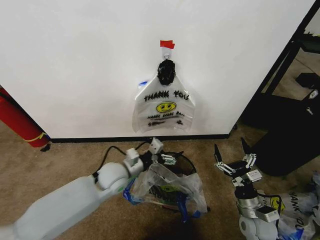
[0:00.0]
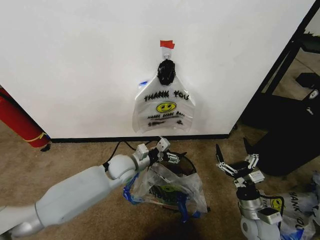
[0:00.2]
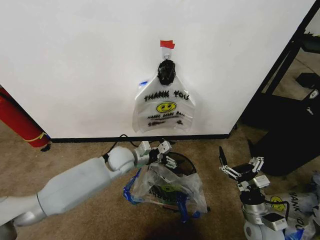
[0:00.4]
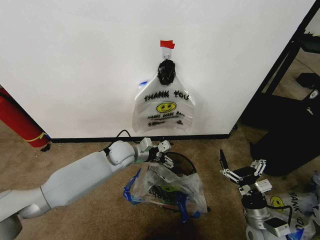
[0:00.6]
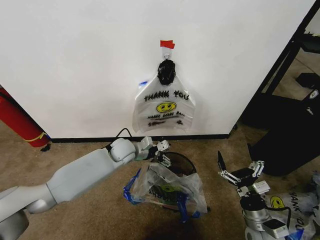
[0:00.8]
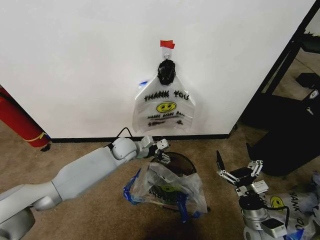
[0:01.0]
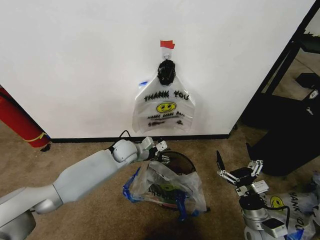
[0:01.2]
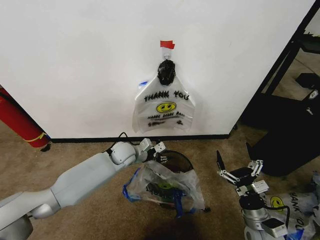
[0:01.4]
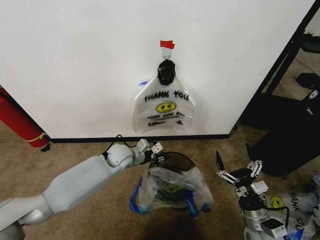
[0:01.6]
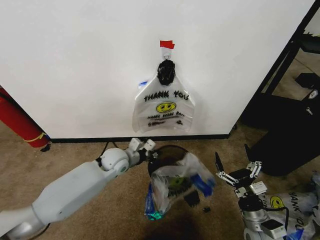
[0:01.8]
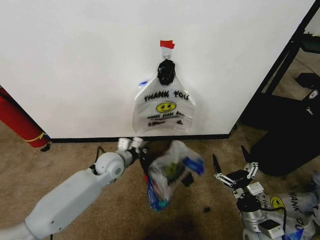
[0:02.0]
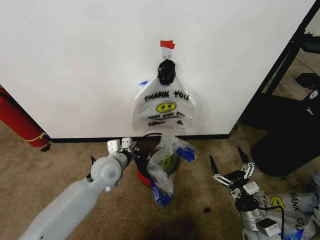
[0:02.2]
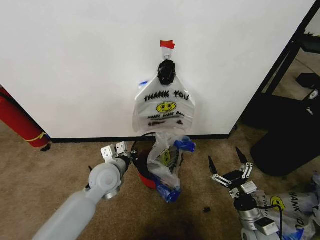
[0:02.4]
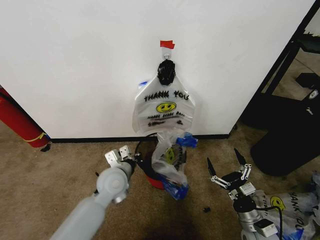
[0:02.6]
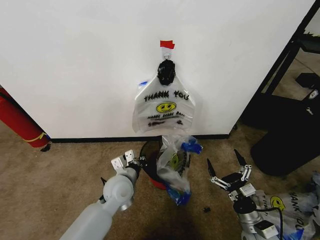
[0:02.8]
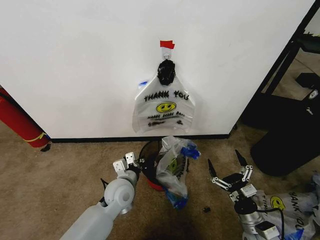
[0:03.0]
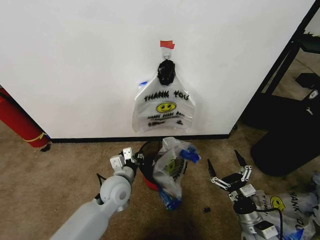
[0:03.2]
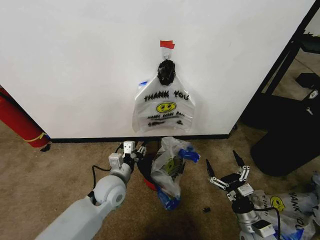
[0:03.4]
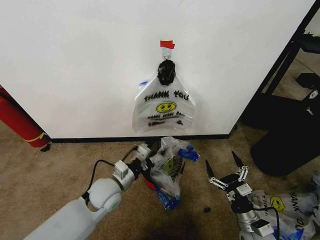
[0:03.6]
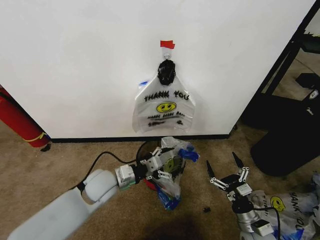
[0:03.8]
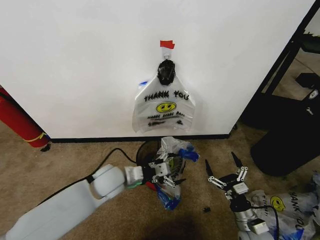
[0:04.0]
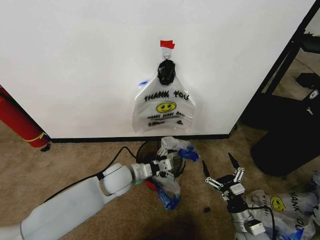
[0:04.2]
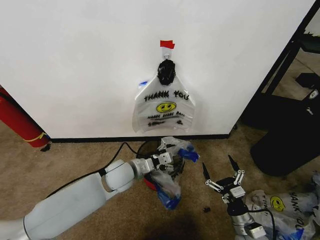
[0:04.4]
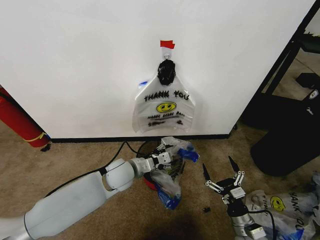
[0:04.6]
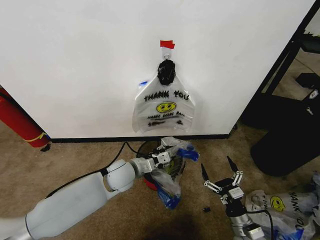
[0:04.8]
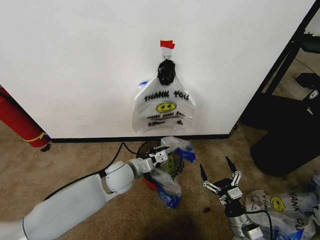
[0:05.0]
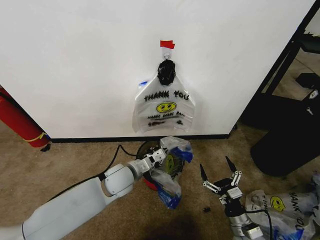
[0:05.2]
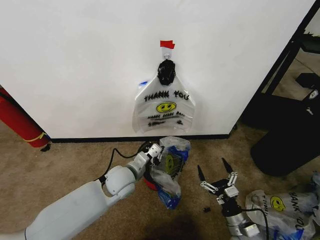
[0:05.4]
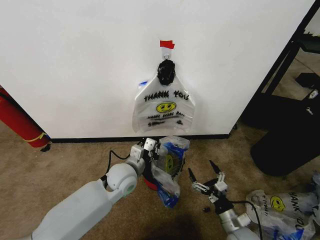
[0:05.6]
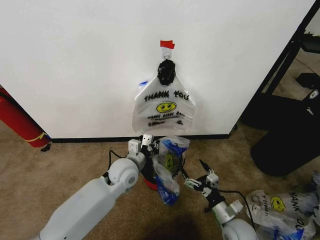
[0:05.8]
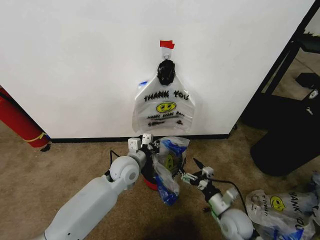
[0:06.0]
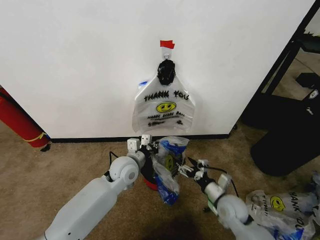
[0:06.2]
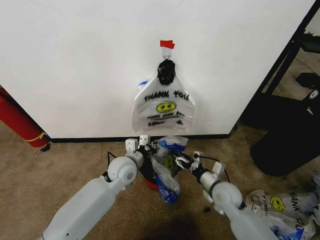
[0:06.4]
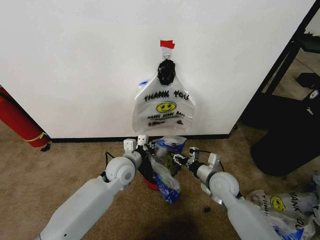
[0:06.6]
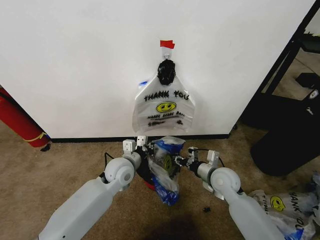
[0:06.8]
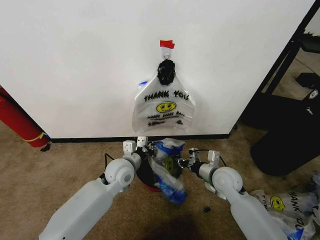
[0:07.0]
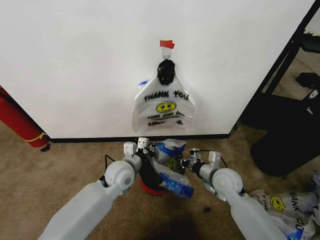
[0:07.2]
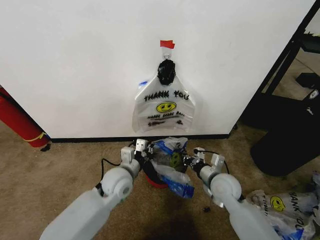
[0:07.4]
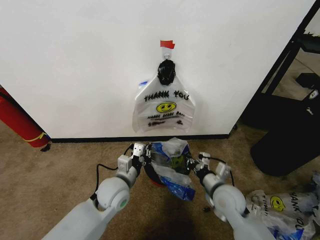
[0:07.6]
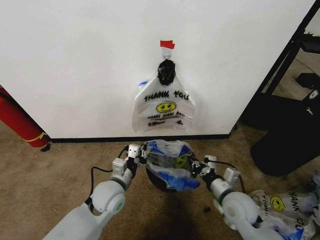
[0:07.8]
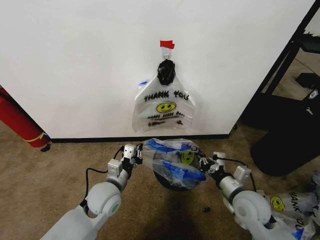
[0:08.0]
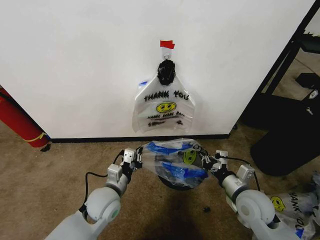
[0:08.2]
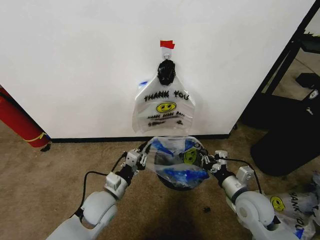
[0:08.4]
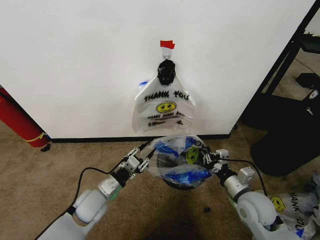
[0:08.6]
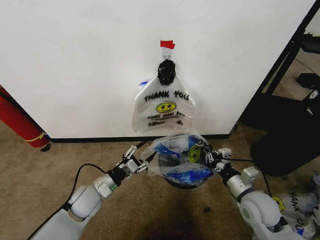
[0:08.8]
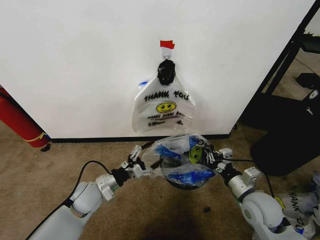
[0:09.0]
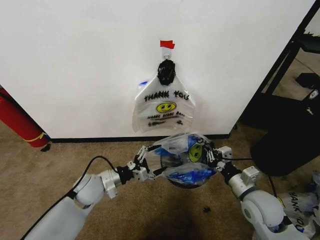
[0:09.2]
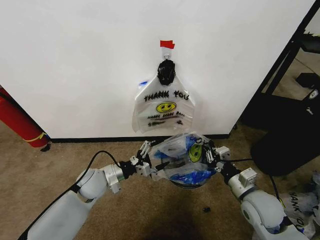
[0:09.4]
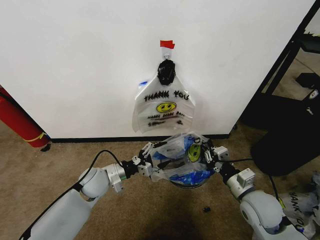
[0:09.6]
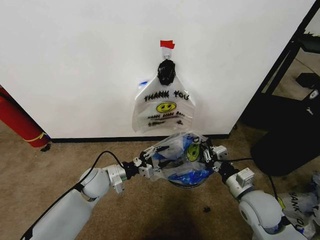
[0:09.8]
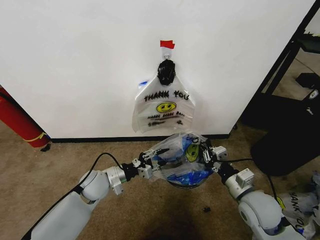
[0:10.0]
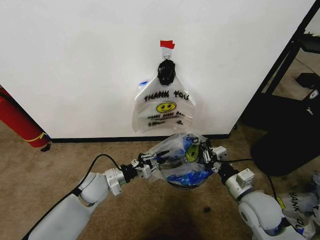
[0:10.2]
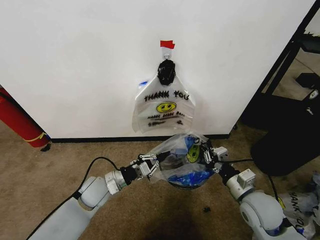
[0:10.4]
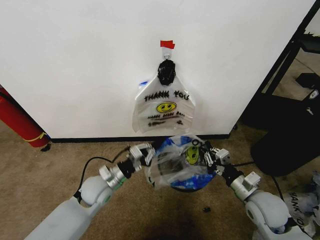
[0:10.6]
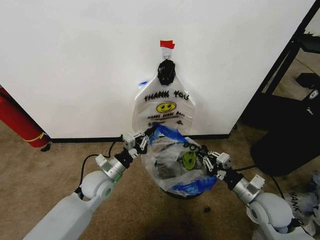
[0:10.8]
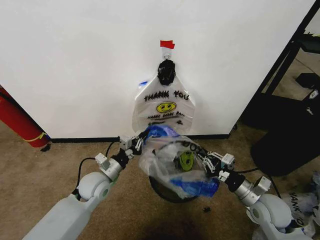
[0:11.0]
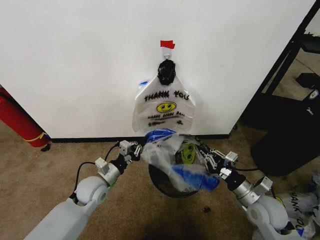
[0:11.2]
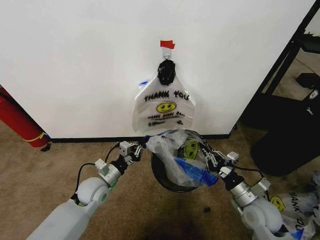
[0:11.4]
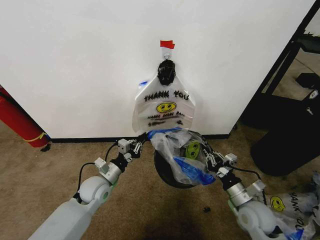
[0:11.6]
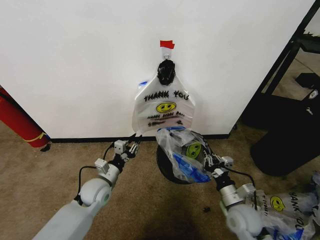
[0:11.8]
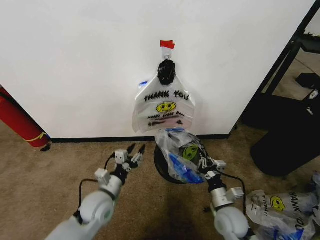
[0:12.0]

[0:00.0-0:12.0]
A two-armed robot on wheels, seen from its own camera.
Task of the whole recording: Pick up the garbage bag from the wall and place it over the trash bin.
0:00.0 to 0:01.6: The left gripper moves forward, some 10 cm, and closes its fingers.
0:01.6 to 0:03.0: The left gripper shifts roughly 15 cm backward.
0:03.0 to 0:04.4: The left gripper changes place by roughly 5 cm, and opens up.
0:04.4 to 0:06.0: The right gripper heads forward, covering approximately 5 cm, while the left gripper closes up.
0:06.0 to 0:07.6: The left gripper is displaced backward by approximately 5 cm. Meanwhile the right gripper travels upward by about 10 cm, and closes.
0:07.6 to 0:09.0: The left gripper heads to the left, covering approximately 10 cm, and opens its fingers. Meanwhile the right gripper is displaced to the right by roughly 5 cm.
0:09.0 to 0:10.4: The left gripper closes its fingers.
0:10.4 to 0:12.0: The right gripper travels downward and to the left by approximately 10 cm, while the left gripper travels backward by about 5 cm, and opens.

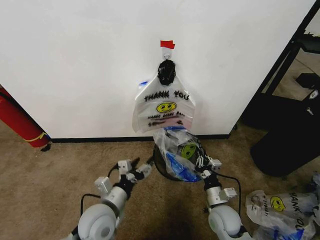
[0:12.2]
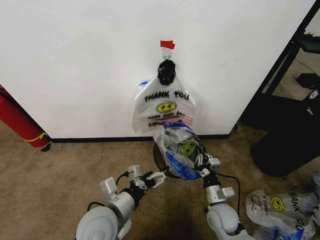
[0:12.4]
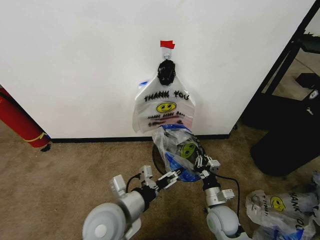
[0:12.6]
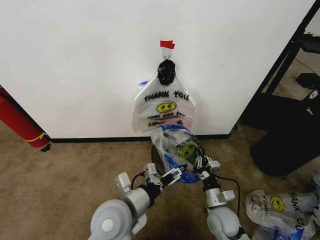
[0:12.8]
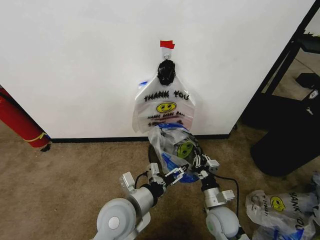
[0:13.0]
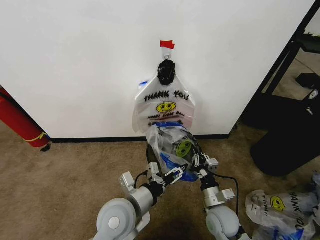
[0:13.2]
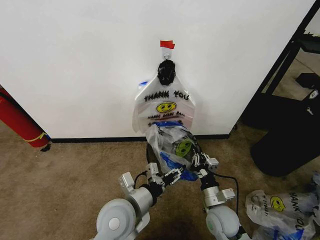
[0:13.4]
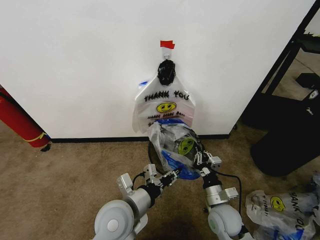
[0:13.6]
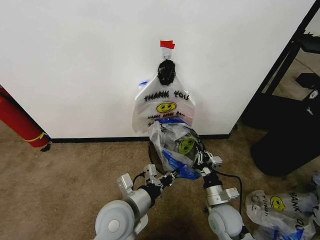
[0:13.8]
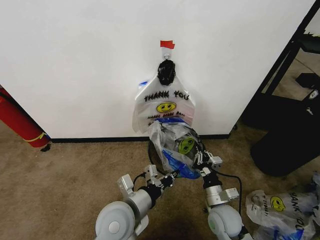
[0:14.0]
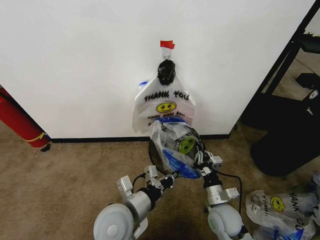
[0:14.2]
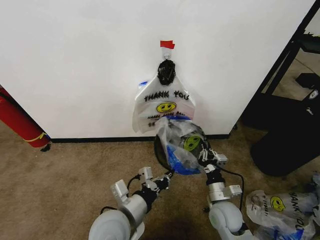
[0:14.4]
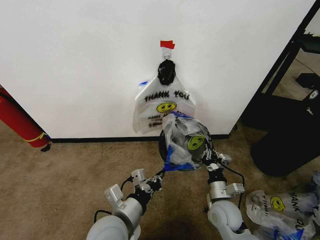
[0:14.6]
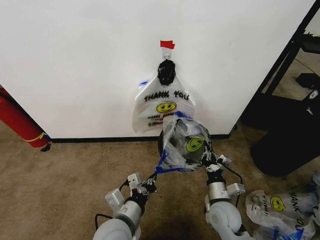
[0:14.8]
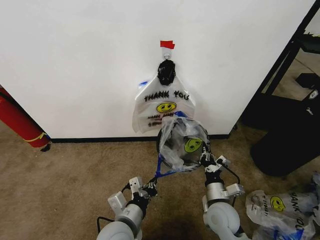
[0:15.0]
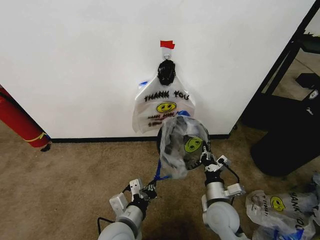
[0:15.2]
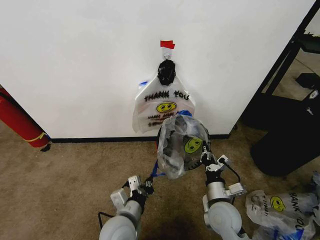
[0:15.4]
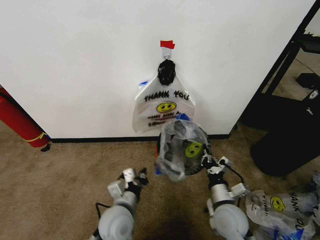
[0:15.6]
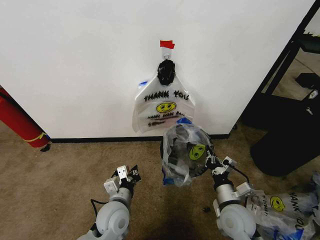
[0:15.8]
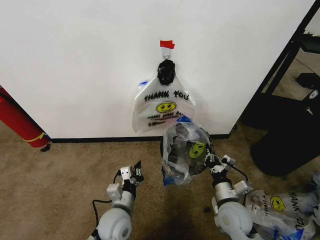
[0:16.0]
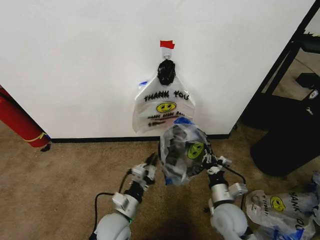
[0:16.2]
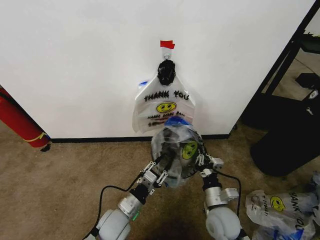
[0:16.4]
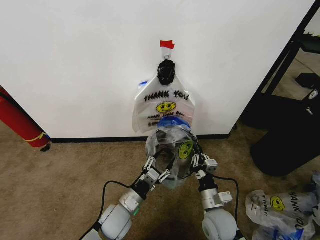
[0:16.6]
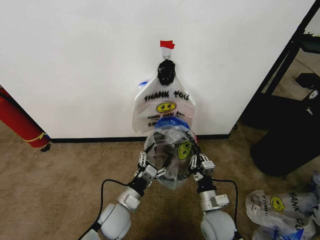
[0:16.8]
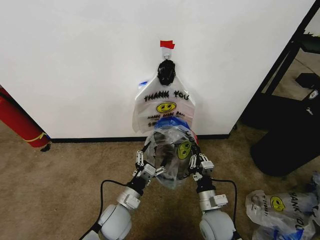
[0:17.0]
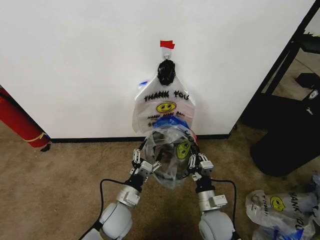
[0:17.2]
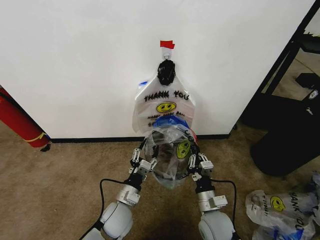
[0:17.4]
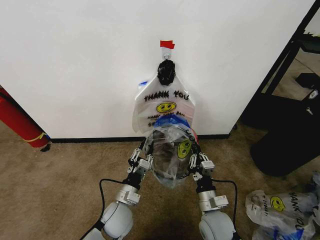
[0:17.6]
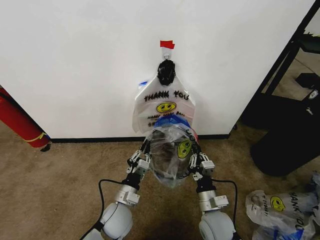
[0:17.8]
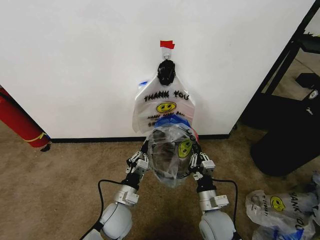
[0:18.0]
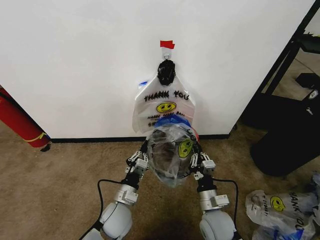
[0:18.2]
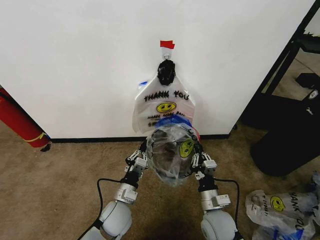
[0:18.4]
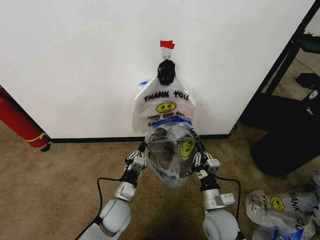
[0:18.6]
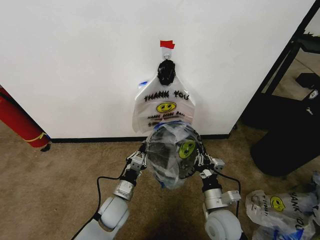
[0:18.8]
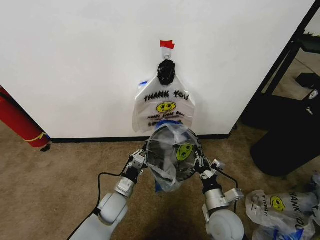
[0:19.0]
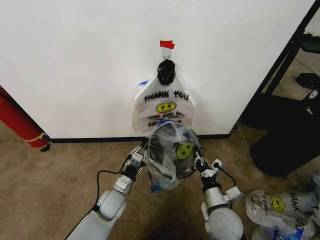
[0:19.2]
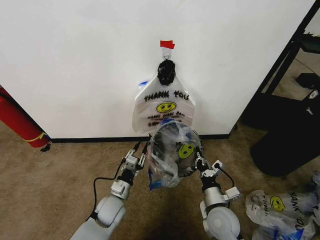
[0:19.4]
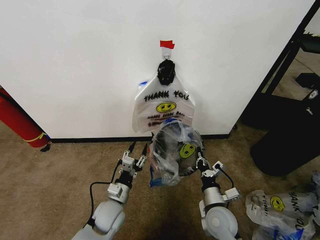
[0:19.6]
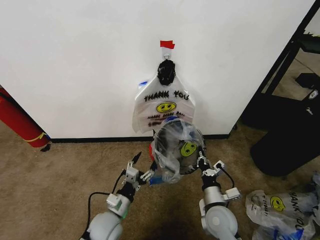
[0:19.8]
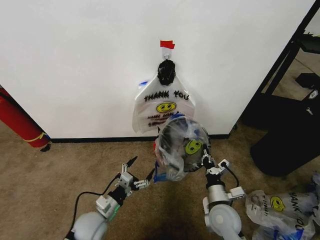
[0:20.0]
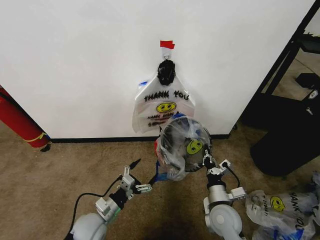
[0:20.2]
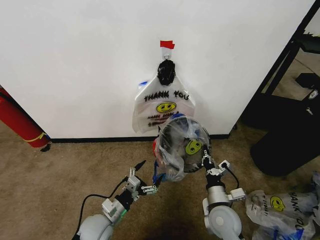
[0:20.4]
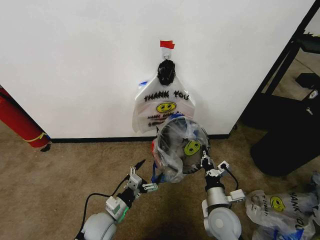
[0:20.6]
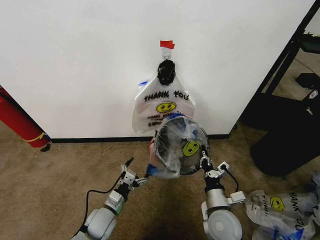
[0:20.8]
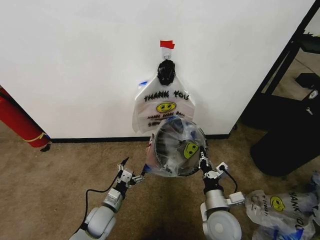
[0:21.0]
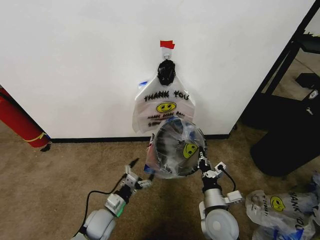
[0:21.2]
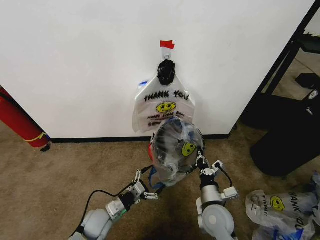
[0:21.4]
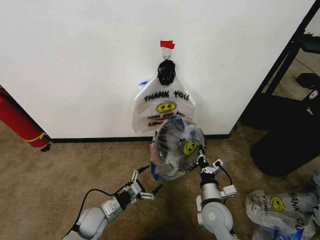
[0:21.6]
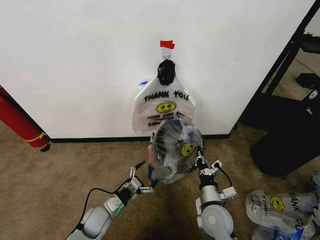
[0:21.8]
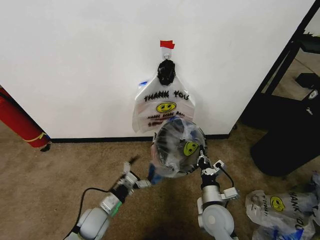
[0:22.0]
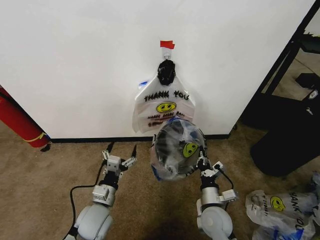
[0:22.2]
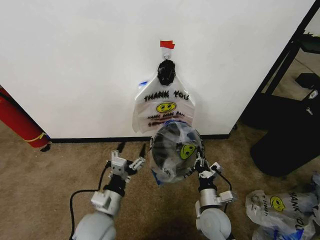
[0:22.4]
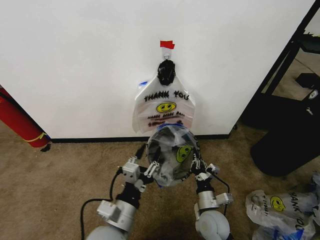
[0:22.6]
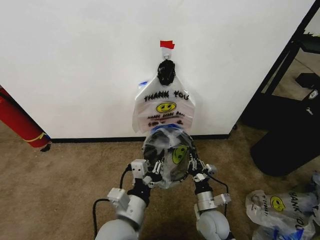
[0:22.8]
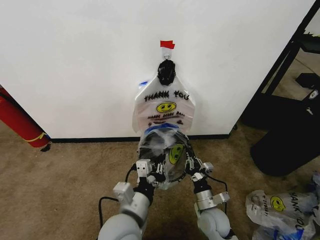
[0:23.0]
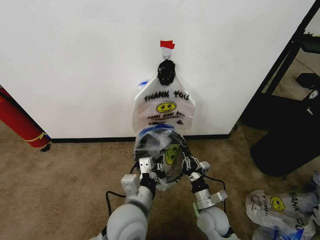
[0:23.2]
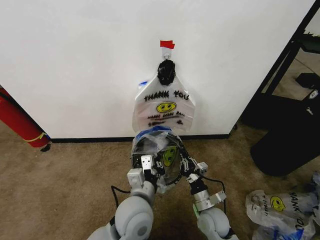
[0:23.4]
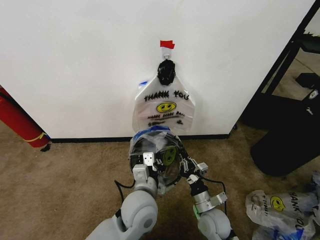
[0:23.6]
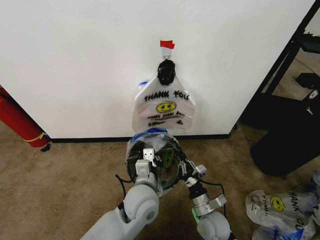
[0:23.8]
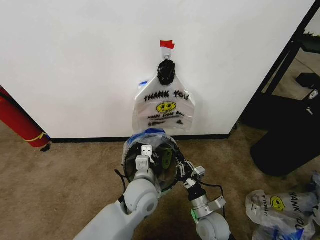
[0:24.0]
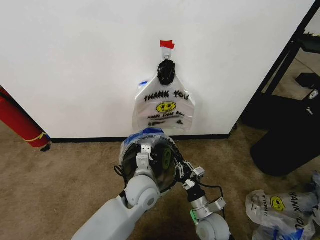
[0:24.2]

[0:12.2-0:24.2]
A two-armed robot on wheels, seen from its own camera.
Task of the whole recording: Pick up the garbage bag from the wall and place it over the trash bin.
0:12.2 to 0:13.8: The left gripper is displaced to the right by about 5 cm, and closes up.
0:13.8 to 0:15.2: The left gripper moves downward, roughly 5 cm.
0:15.2 to 0:16.6: The left gripper is displaced downward and forward by approximately 10 cm, and opens up.
0:16.6 to 0:18.2: The left gripper closes.
0:18.2 to 0:19.8: The left gripper goes forward and returns, about 5 cm each way, and opens up.
0:19.8 to 0:21.2: The left gripper moves about 5 cm.
0:21.2 to 0:22.6: The left gripper goes some 20 cm upward, backward and to the right, and closes.
0:22.6 to 0:24.2: The left gripper shifts some 15 cm forward and to the right, and closes up.
